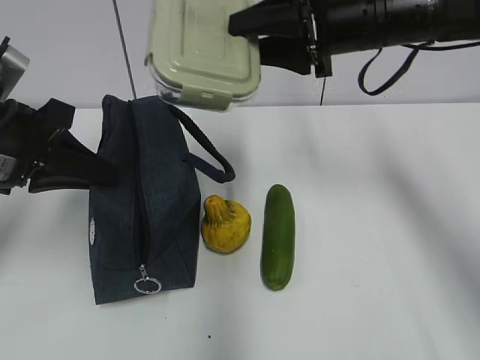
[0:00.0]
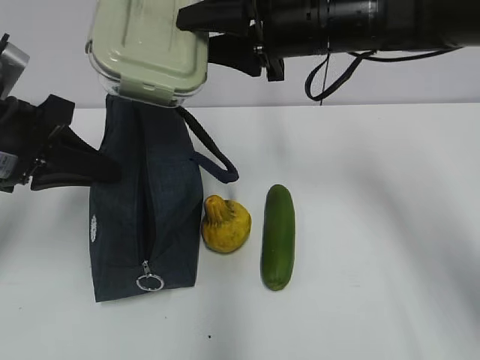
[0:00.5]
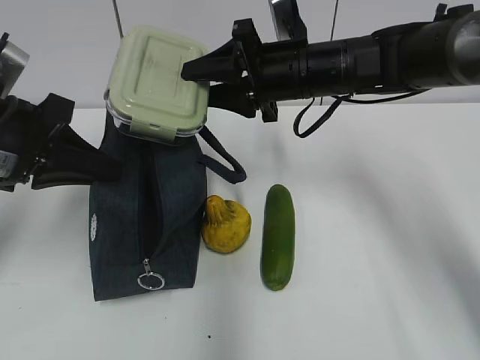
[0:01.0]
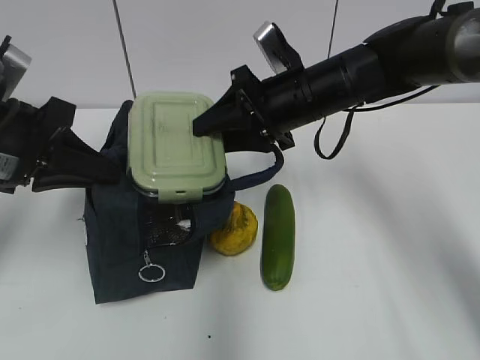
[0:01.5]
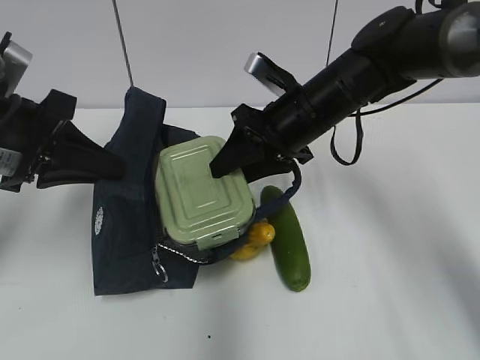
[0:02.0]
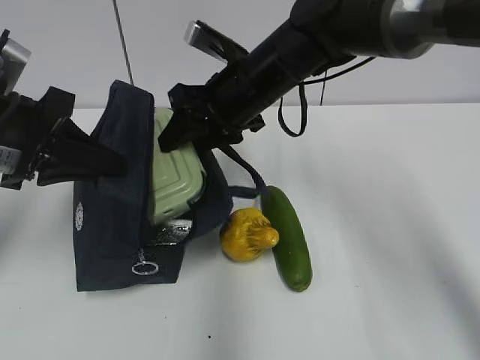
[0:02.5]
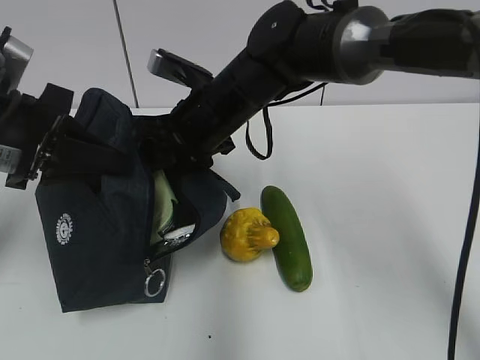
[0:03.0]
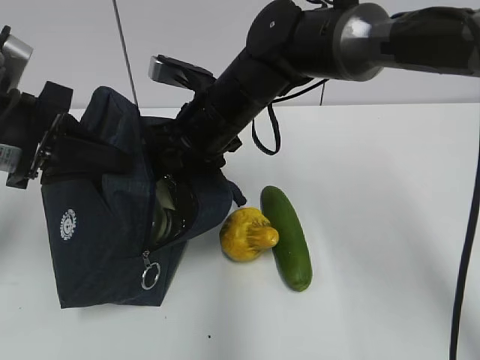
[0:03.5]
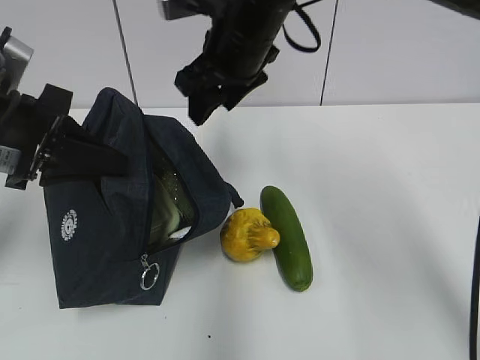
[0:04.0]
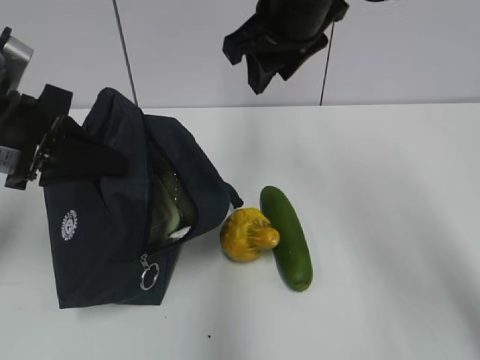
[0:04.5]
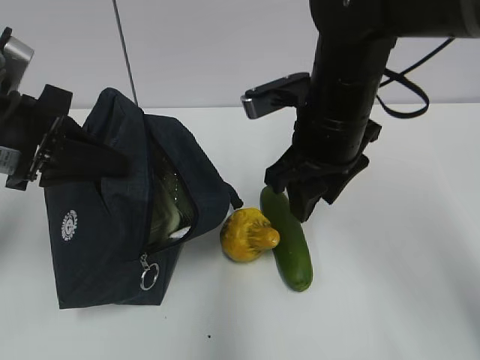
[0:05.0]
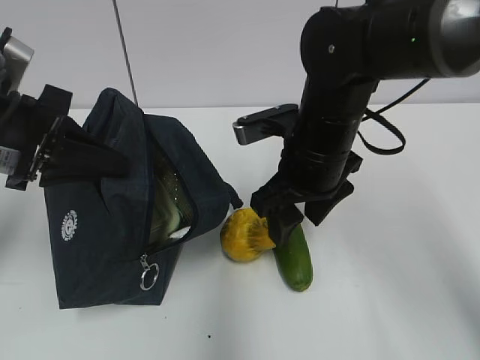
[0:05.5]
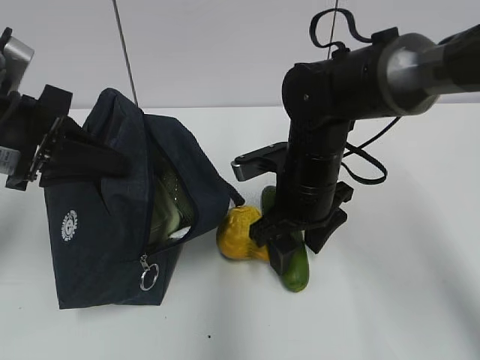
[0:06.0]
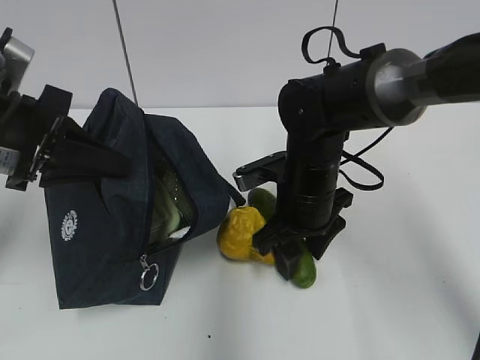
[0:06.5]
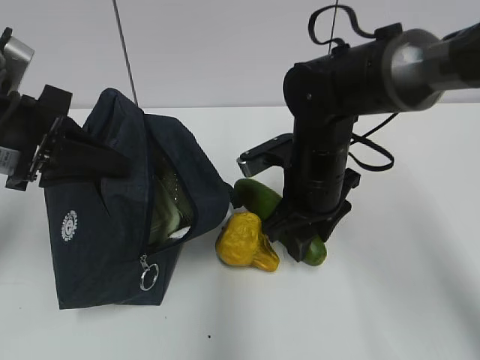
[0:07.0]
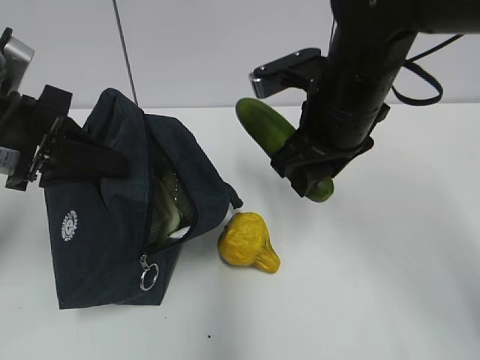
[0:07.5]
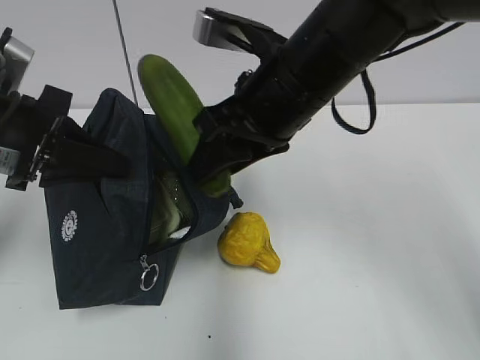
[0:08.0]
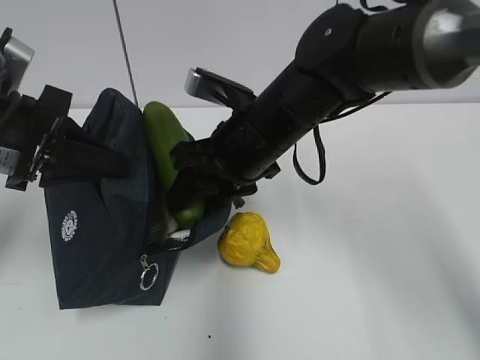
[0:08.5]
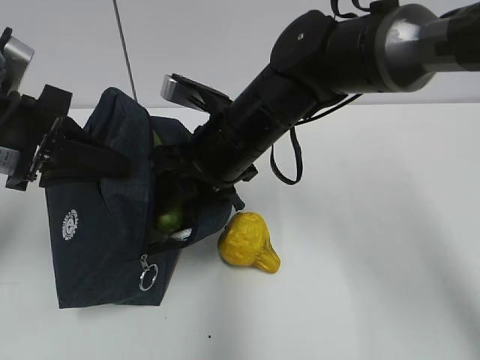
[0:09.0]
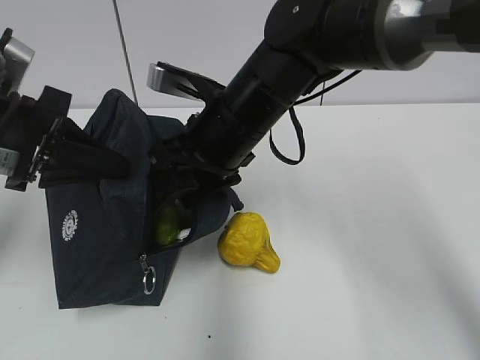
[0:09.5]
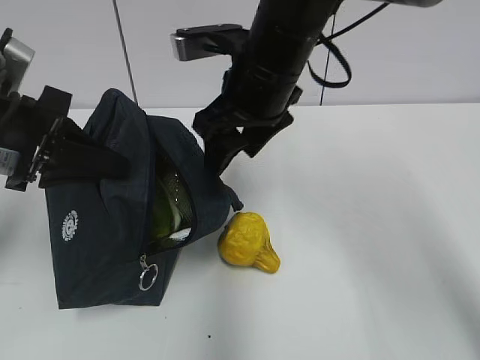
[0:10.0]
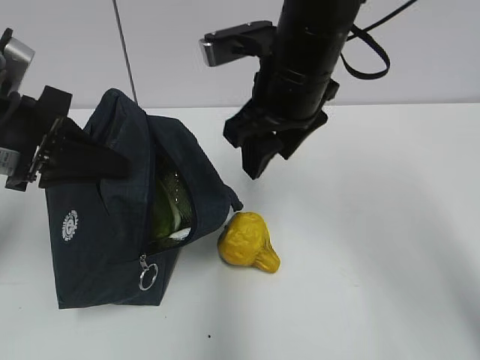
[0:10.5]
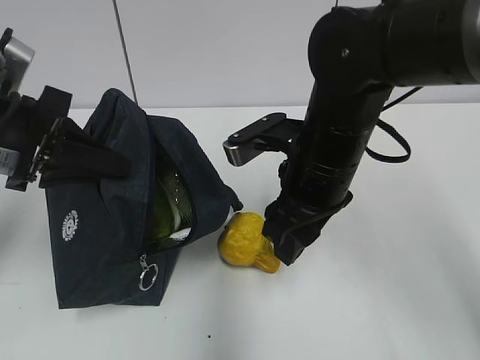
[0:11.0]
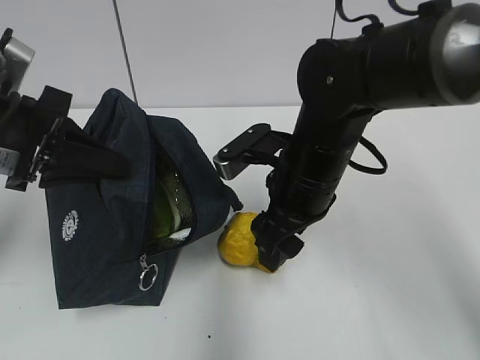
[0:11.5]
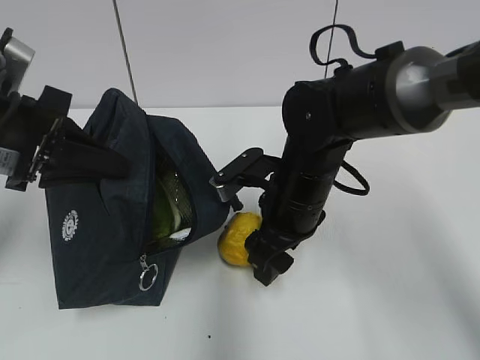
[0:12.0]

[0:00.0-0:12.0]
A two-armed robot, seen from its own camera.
0:00.0 to 0:02.0: The right gripper travels downward by some 10 cm.
0:02.0 to 0:04.0: The right gripper goes about 10 cm upward and to the left.
0:04.0 to 0:06.0: The right gripper goes some 15 cm downward and backward.
0:06.0 to 0:08.0: The right gripper goes some 15 cm upward.
0:10.0 to 0:12.0: The right gripper travels downward by roughly 15 cm.

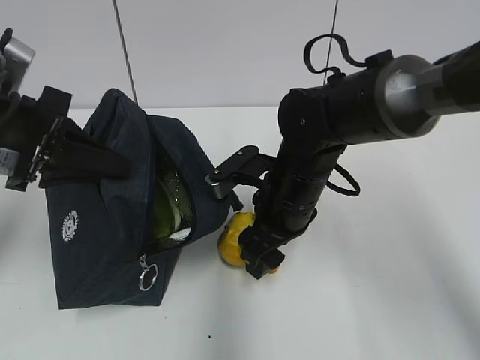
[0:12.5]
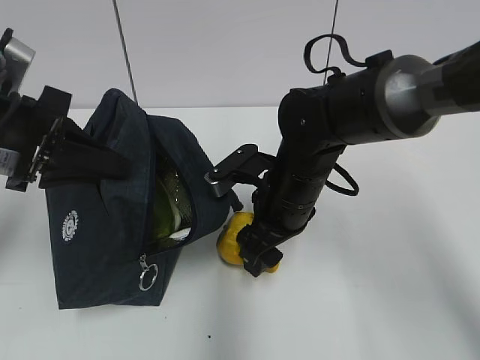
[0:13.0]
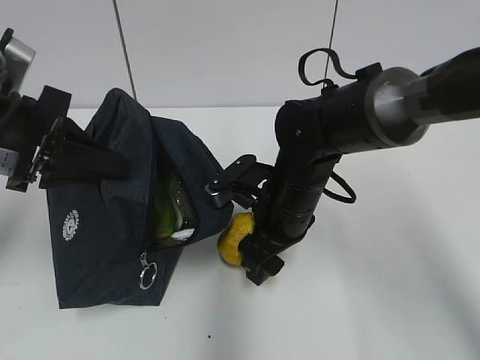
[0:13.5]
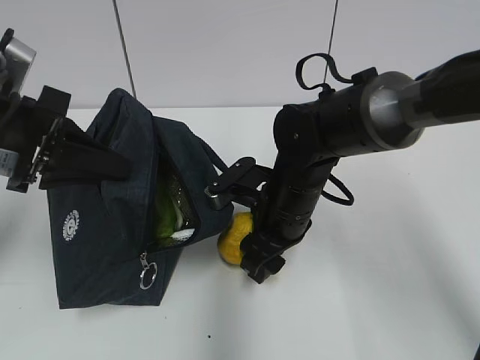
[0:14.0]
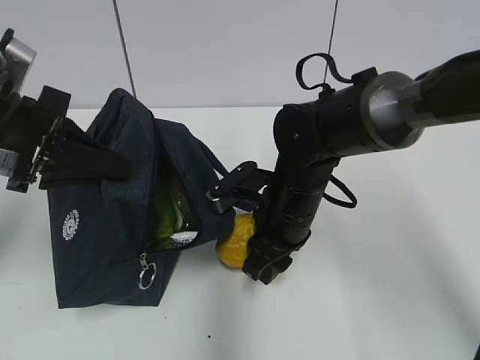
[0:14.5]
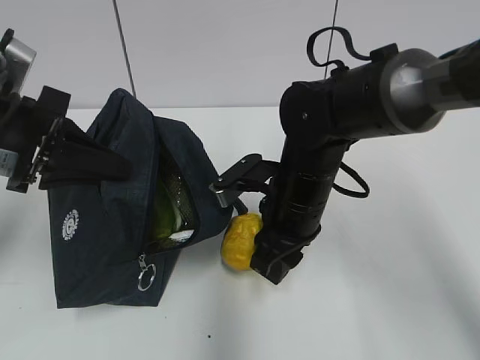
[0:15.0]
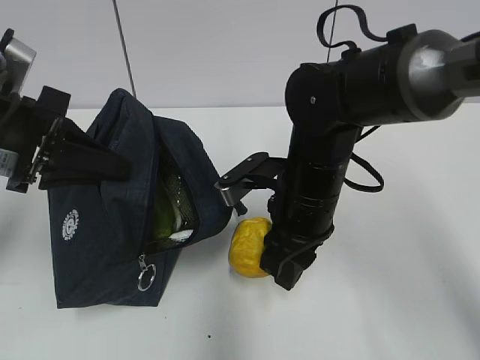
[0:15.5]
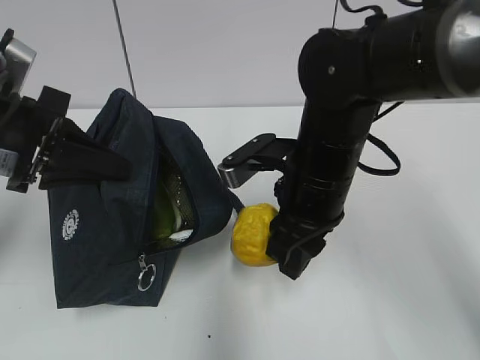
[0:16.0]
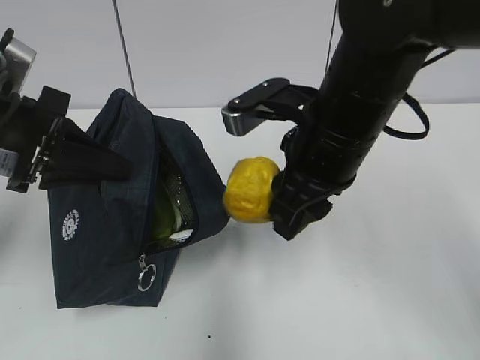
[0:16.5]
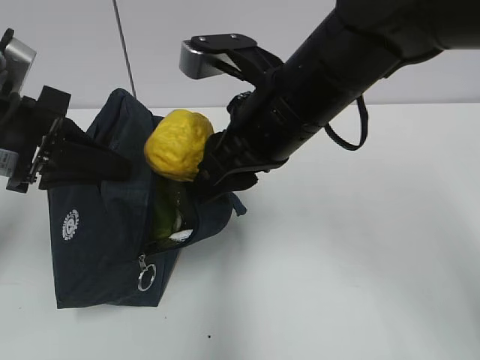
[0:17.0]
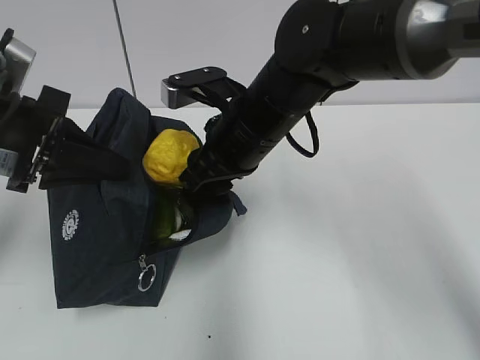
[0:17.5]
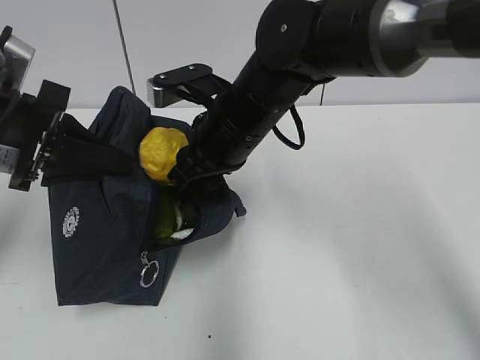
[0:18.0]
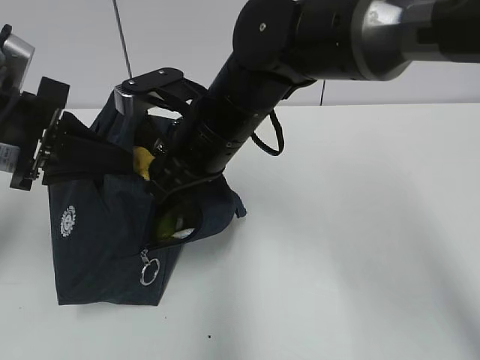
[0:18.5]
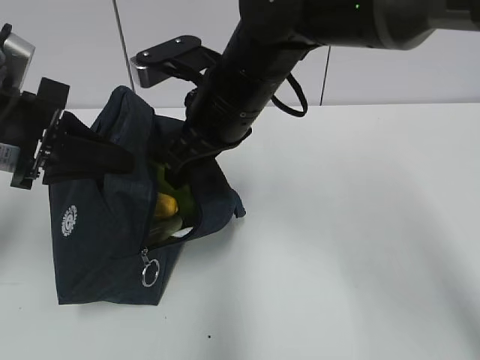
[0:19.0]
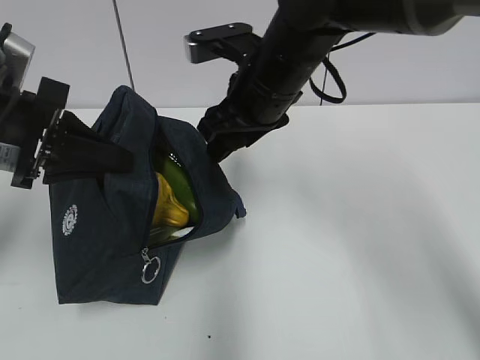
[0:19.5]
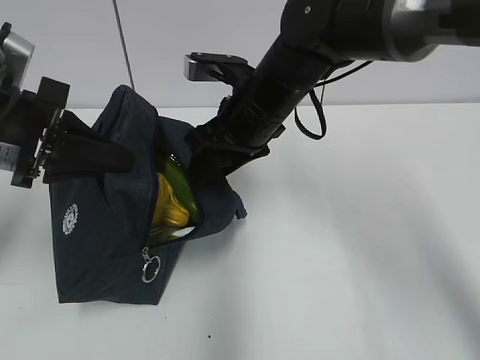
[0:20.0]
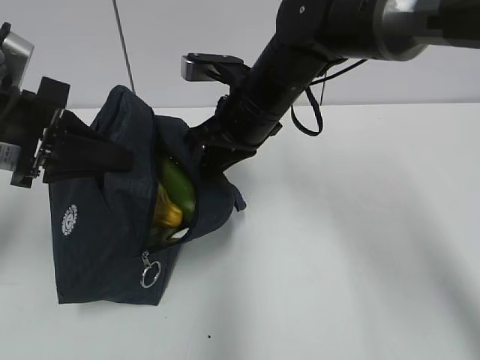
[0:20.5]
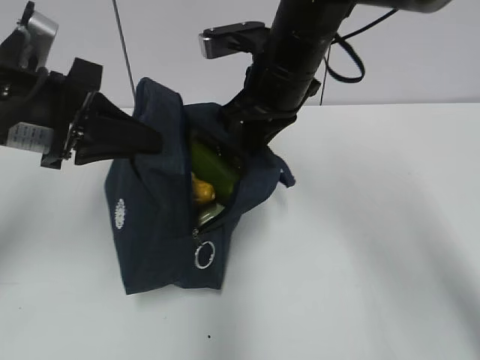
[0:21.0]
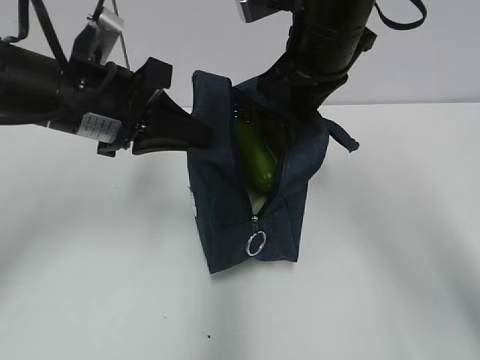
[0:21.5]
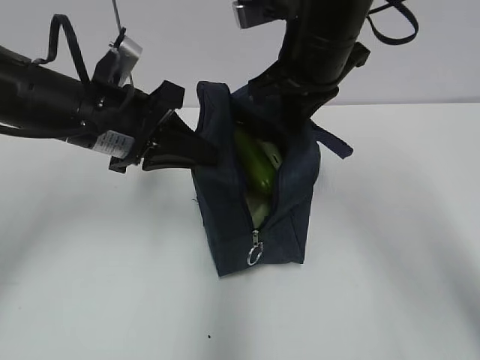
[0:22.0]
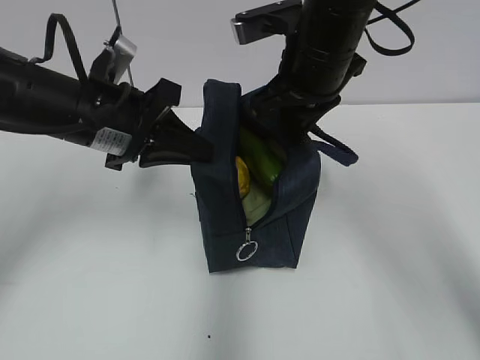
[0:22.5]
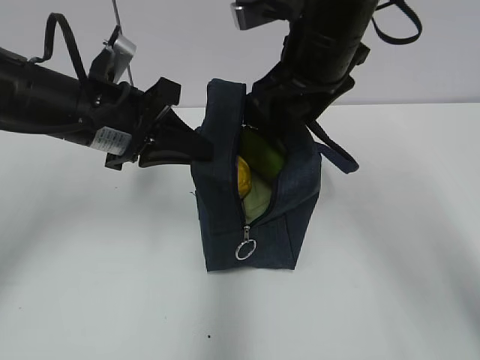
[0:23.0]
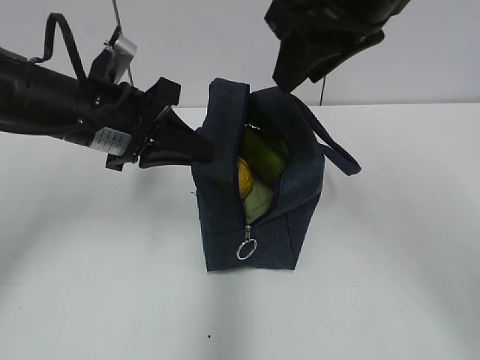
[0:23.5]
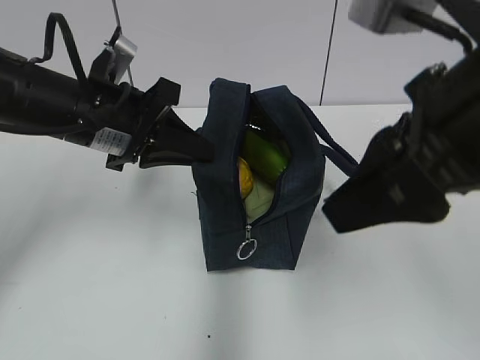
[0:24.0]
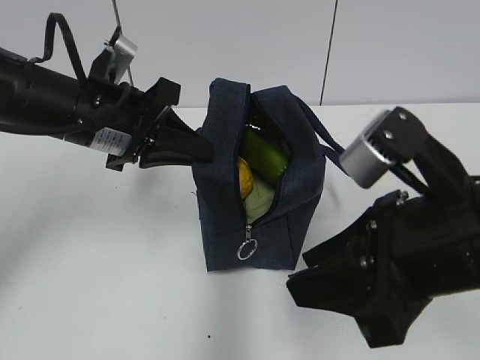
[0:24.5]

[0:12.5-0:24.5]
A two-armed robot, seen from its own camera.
0:12.5 to 0:14.5: The right gripper closes up.
0:14.5 to 0:16.5: The right gripper travels upward by about 15 cm.
0:16.5 to 0:18.5: The right gripper heads to the left and forward, covering some 10 cm.
0:18.5 to 0:20.5: The right gripper travels forward by some 5 cm, and closes.
0:20.5 to 0:22.5: The left gripper shifts some 5 cm to the right. Meanwhile the right gripper travels upward and to the right by about 10 cm.
0:22.5 to 0:24.5: The right gripper travels backward by roughly 20 cm.

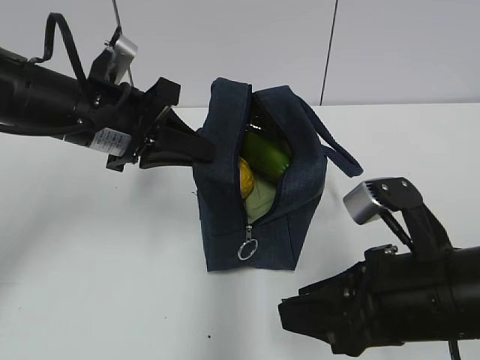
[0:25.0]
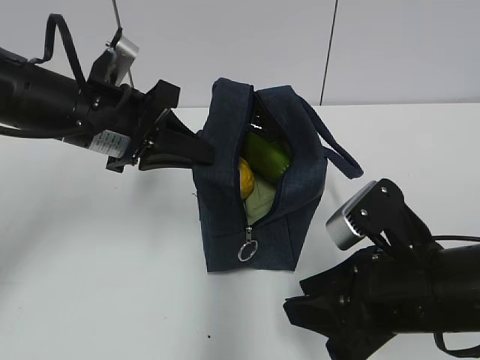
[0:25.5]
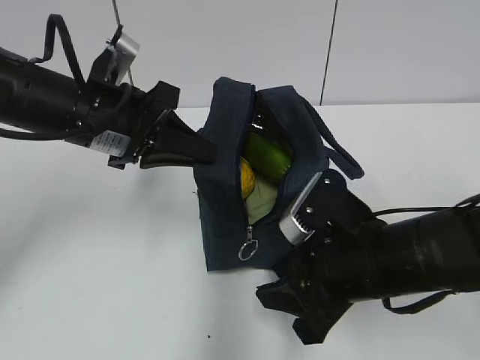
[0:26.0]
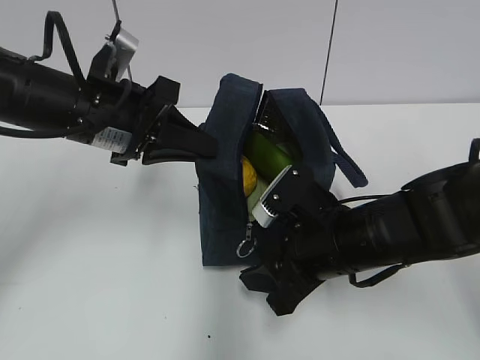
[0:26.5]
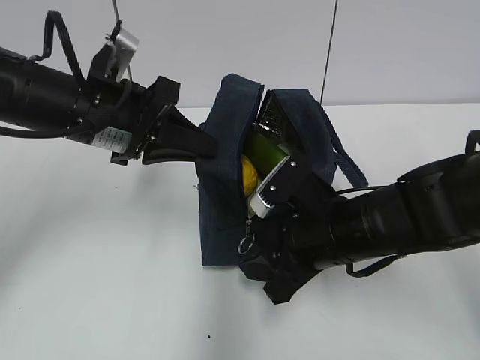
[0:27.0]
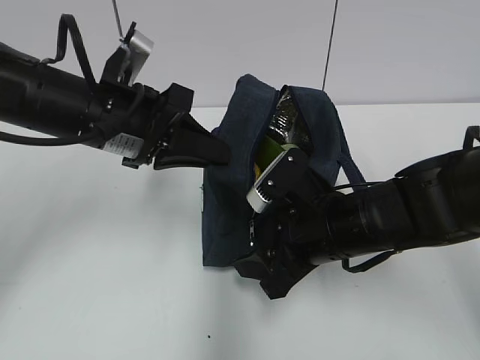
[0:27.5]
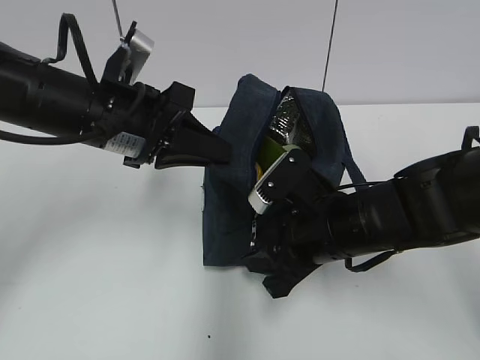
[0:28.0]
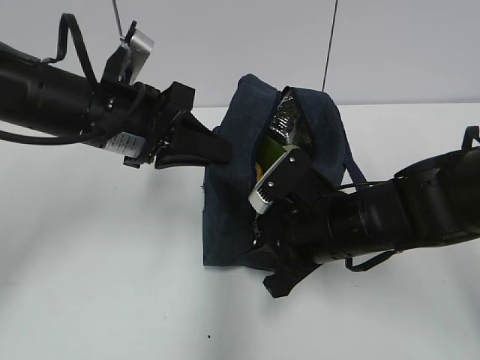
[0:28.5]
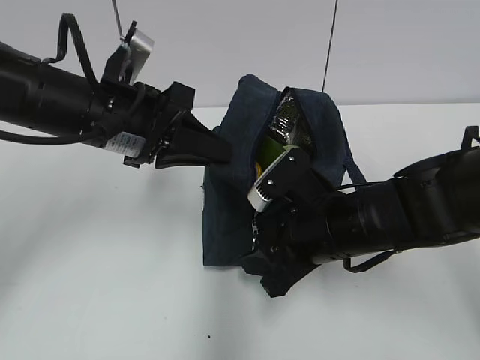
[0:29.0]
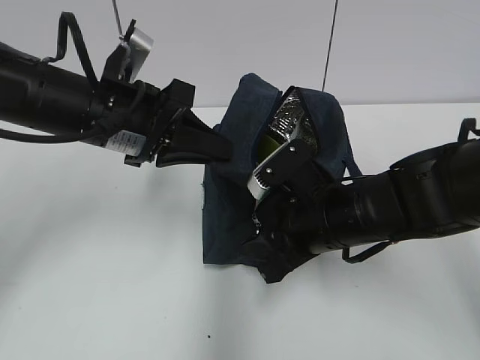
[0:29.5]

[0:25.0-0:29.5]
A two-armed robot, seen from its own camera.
0:25.0 to 0:27.0: The right gripper is displaced forward by about 10 cm.
0:27.0 to 0:29.5: The grippers move only a little.
